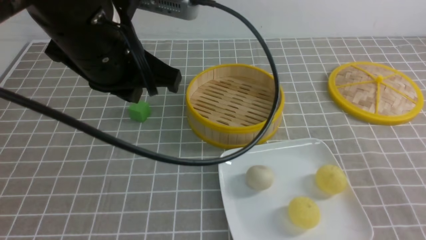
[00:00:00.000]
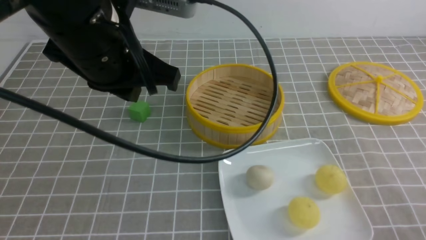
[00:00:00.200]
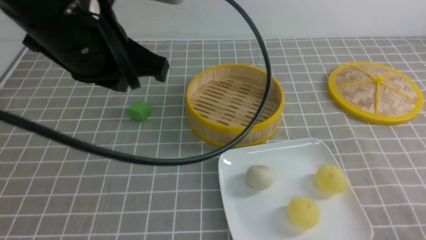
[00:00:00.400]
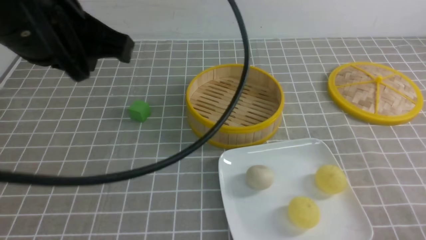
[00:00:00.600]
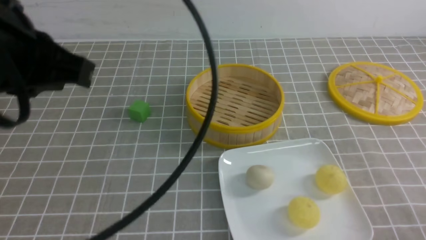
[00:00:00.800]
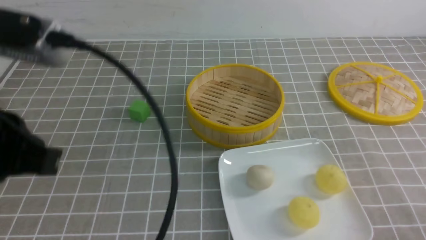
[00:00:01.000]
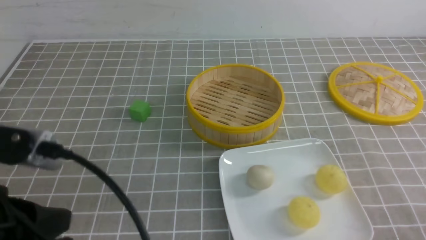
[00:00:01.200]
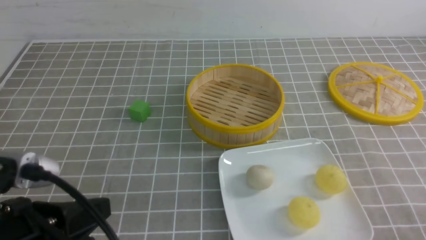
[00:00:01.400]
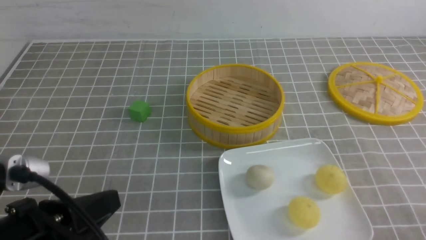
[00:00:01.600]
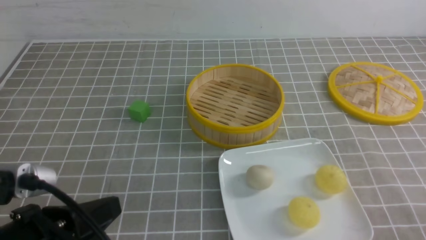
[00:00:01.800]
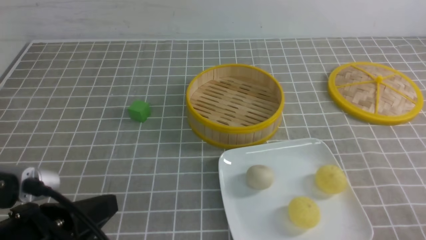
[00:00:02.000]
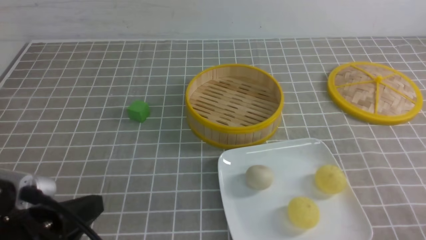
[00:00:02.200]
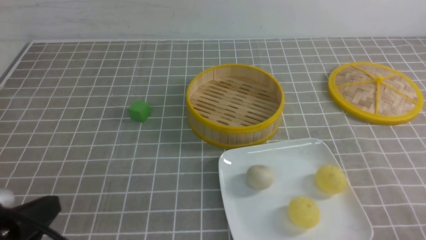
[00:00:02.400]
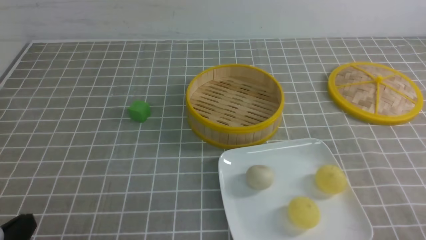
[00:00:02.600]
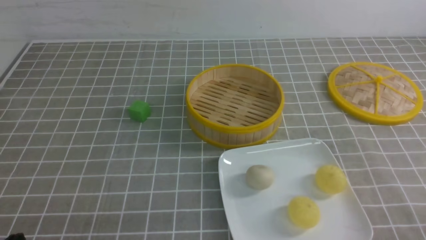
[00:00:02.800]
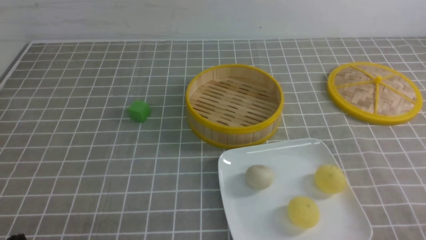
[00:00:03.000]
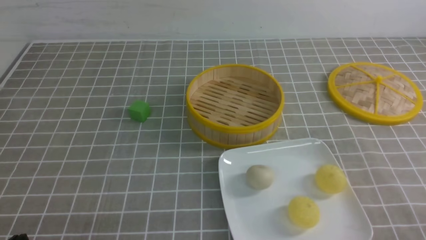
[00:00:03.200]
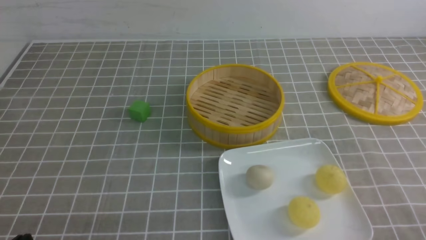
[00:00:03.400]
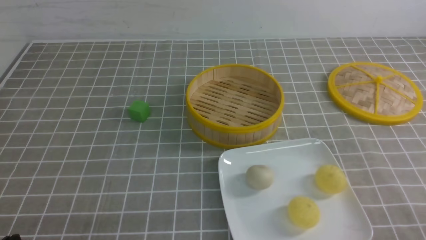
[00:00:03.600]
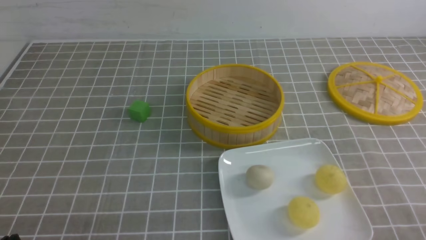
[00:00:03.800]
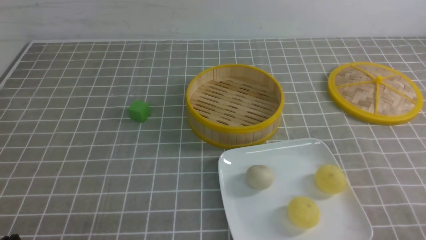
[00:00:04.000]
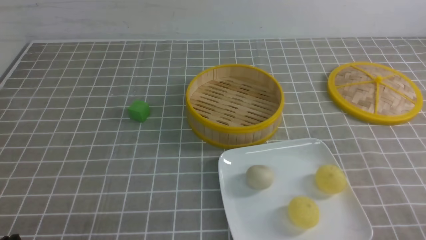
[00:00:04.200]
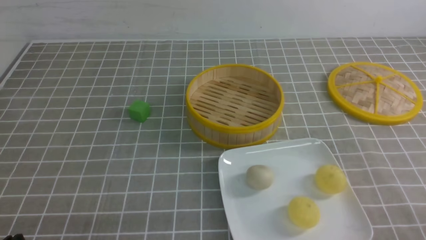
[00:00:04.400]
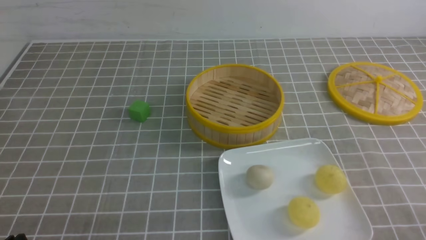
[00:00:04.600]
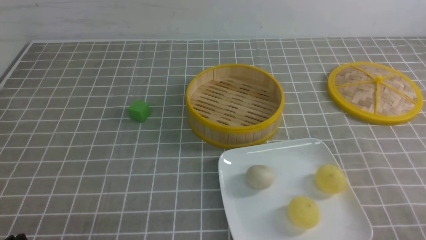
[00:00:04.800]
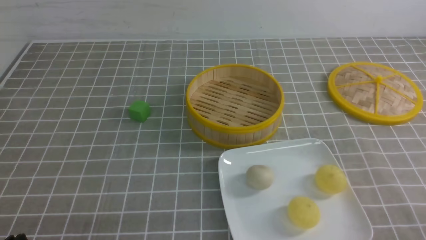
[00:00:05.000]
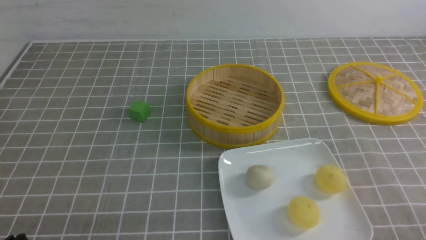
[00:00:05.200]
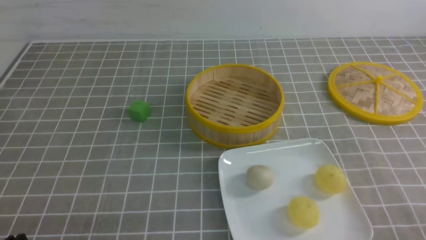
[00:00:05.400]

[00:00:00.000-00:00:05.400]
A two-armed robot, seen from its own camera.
00:00:00.000 to 00:00:01.400: The right gripper goes about 10 cm downward; the left gripper travels backward, downward and to the left by about 20 cm.
00:00:01.400 to 00:00:02.800: The left gripper shifts approximately 10 cm downward and to the left.
00:00:04.000 to 00:00:05.400: The two grippers keep their place.

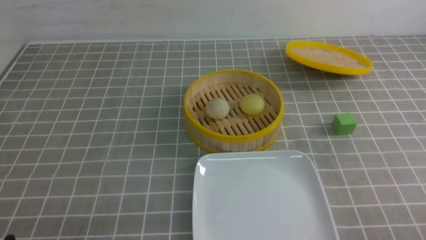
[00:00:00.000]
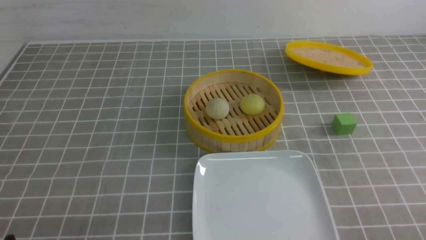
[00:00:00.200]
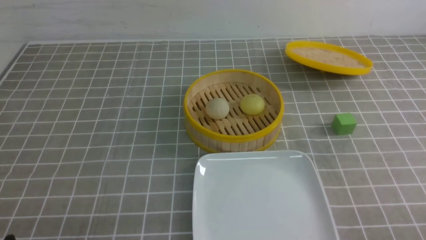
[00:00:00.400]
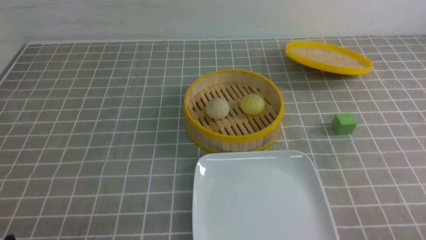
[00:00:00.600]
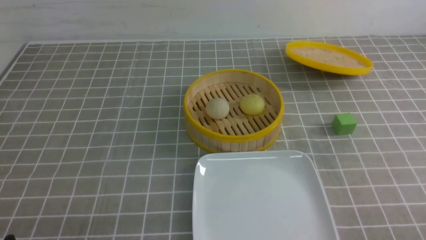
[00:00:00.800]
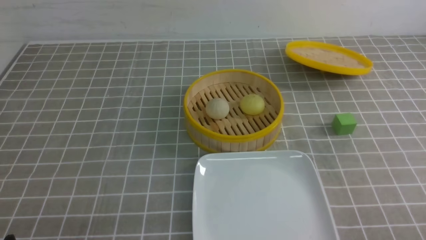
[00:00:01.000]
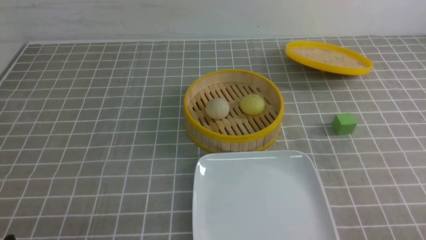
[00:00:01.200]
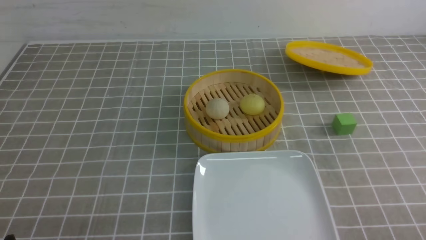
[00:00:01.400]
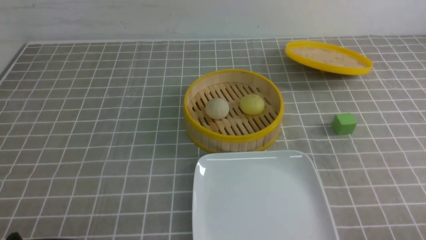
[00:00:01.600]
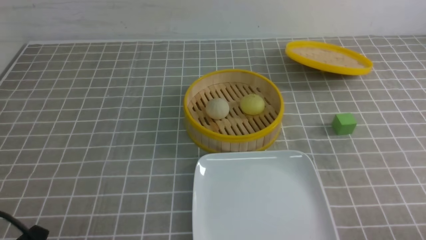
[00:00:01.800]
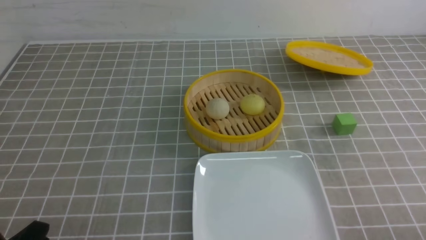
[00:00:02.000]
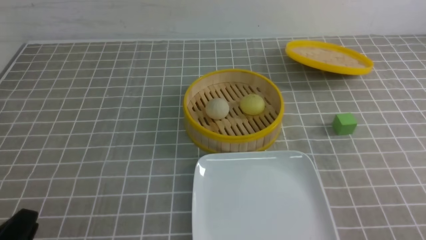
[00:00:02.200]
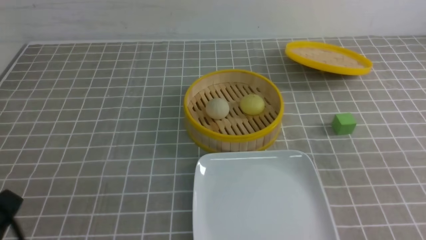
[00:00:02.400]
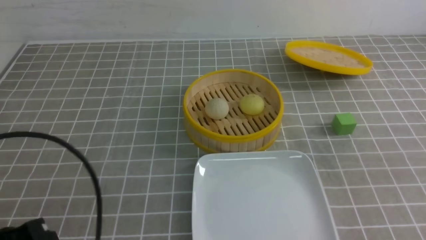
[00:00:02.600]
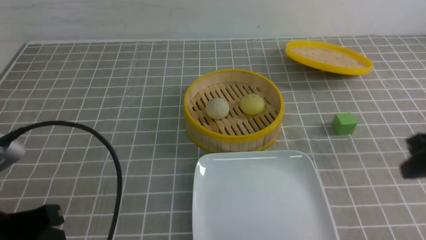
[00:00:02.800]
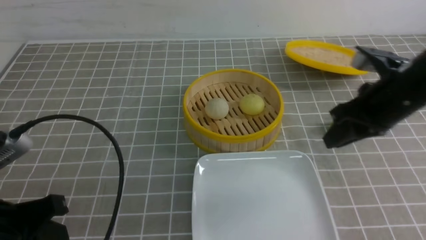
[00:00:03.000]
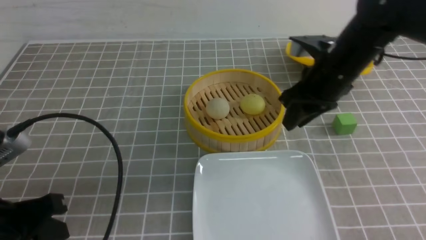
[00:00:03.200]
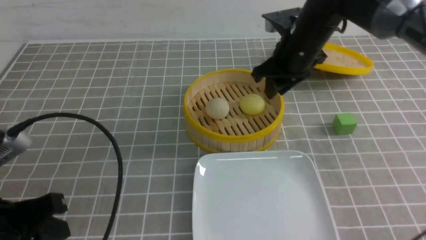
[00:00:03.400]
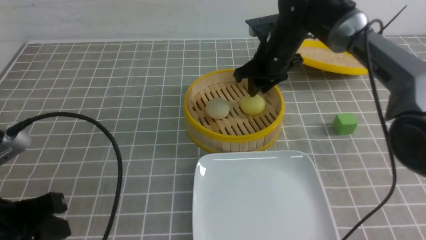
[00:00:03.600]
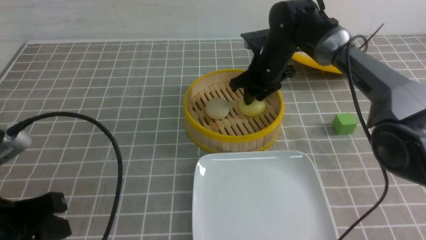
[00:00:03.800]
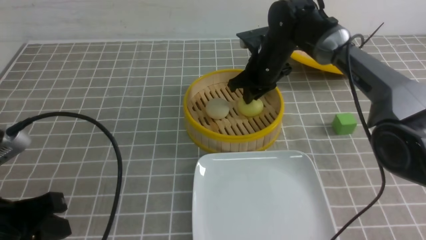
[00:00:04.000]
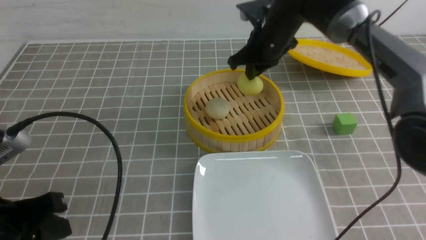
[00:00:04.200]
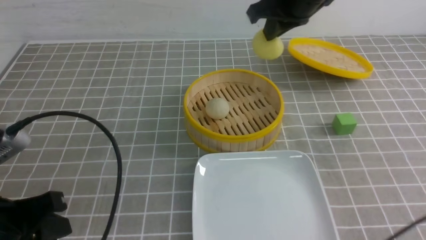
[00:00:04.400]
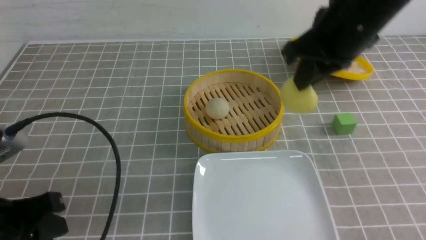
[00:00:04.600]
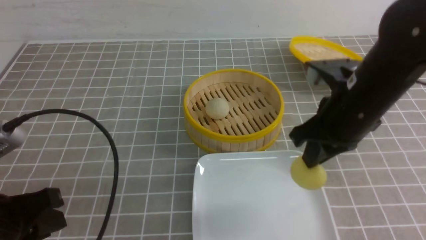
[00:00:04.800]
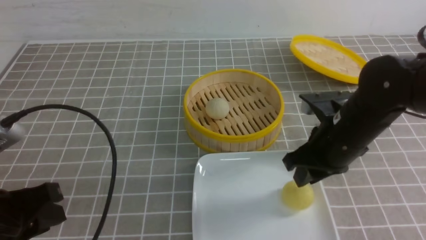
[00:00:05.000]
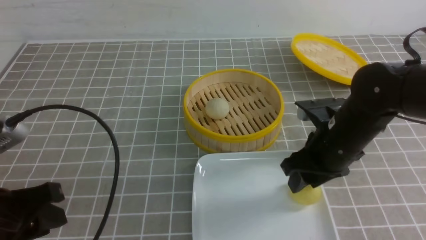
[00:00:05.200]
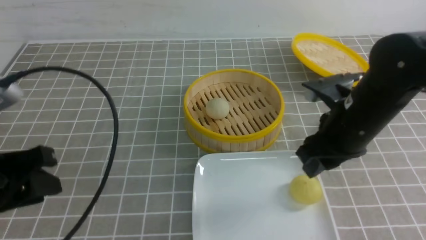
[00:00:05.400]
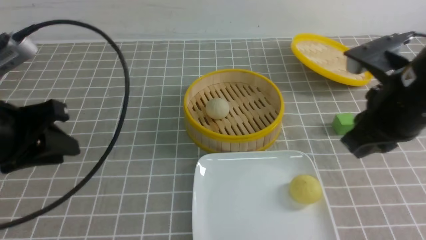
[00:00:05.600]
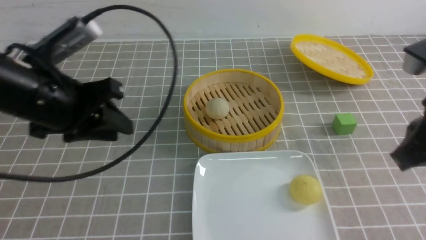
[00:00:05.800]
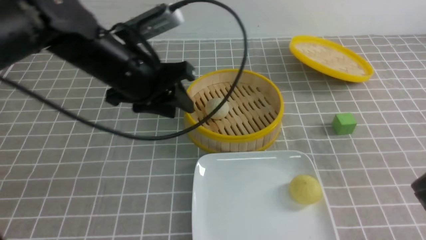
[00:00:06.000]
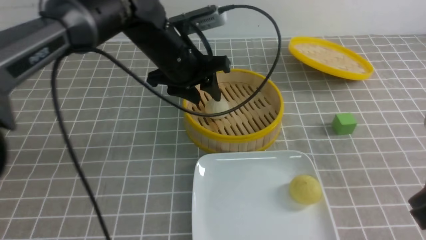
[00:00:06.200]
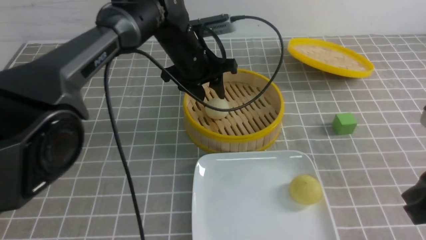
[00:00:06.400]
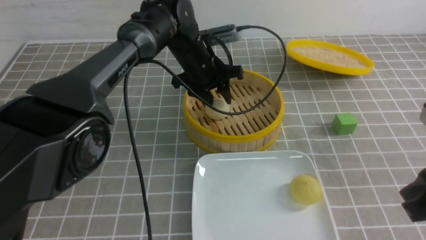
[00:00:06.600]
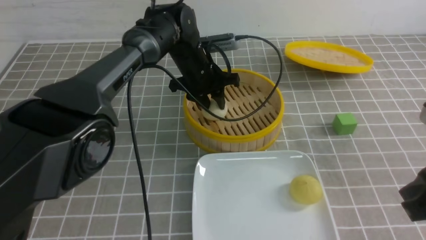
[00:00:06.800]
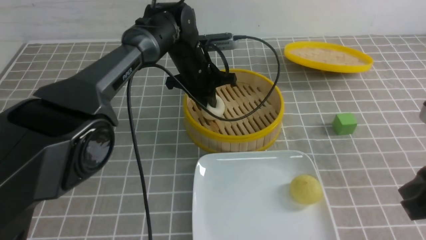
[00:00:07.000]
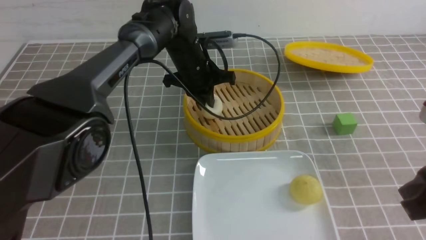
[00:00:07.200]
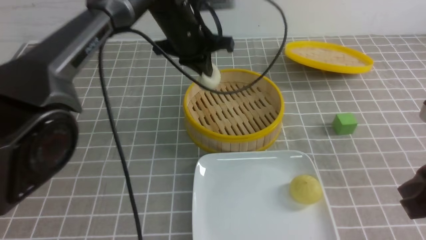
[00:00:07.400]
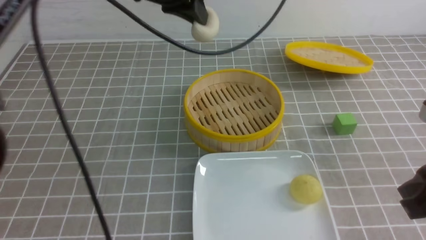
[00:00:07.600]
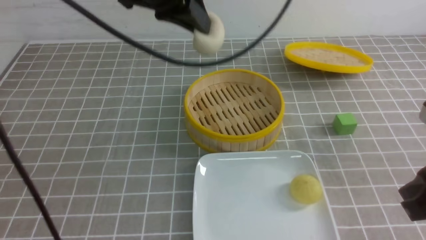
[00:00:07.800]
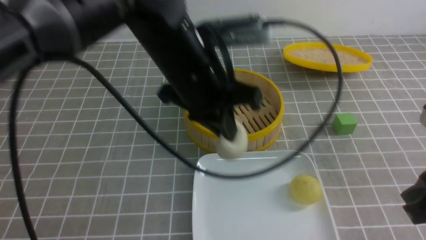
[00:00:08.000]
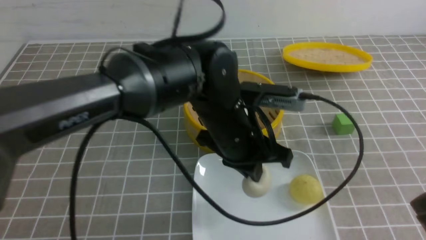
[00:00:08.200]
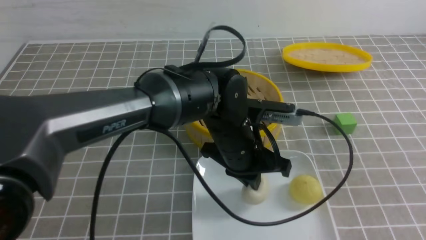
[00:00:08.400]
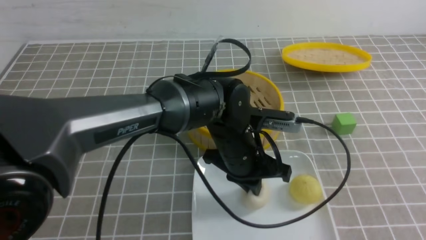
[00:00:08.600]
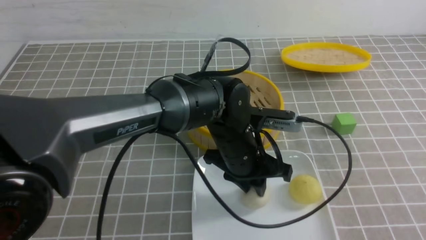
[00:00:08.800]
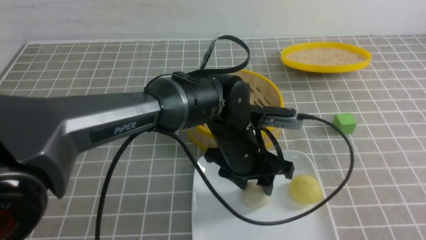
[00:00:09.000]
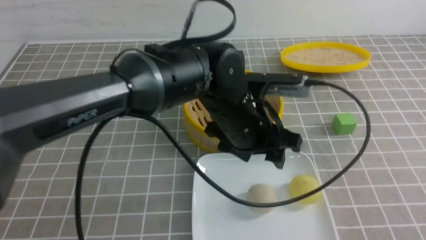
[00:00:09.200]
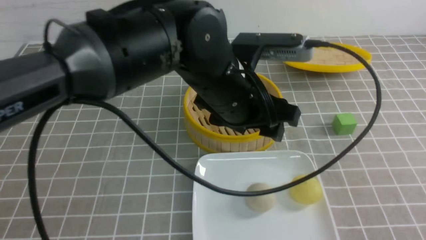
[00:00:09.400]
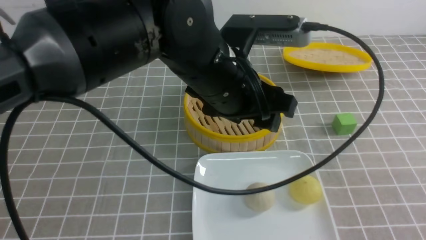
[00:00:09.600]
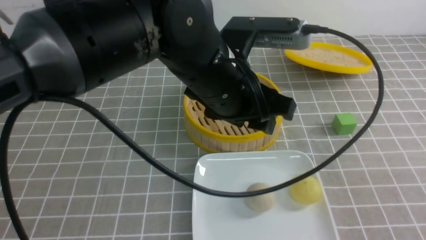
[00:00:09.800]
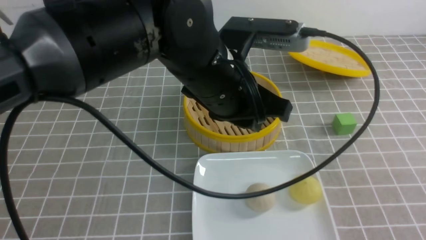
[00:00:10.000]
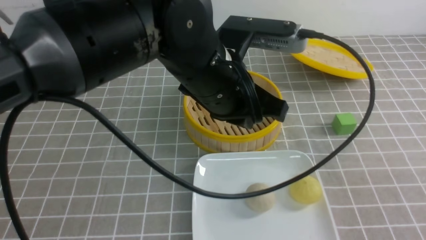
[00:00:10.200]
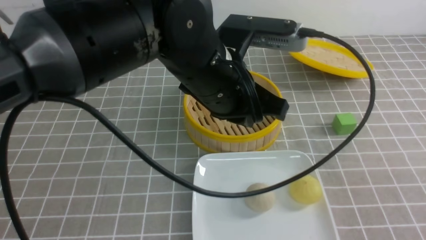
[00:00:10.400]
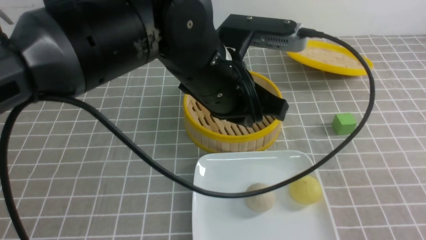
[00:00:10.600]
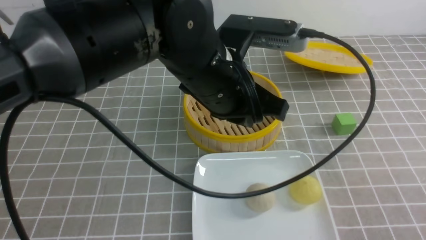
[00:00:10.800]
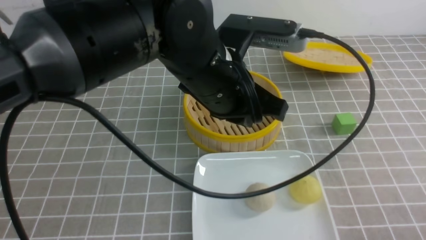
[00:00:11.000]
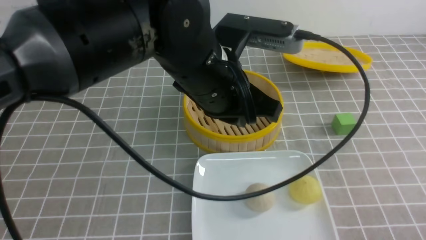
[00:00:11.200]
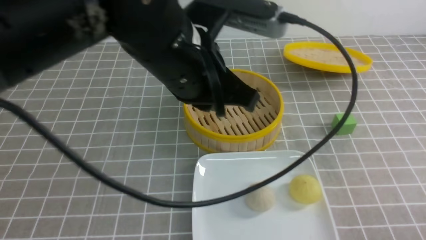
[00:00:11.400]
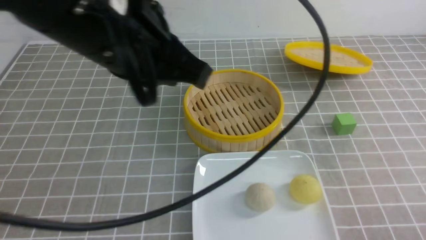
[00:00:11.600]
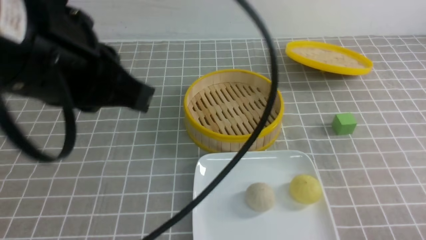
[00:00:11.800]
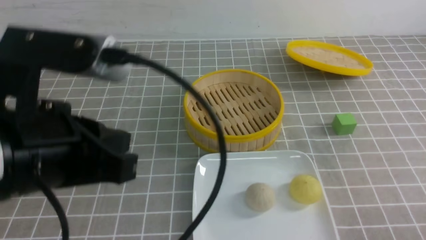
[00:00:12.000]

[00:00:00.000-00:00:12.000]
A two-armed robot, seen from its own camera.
Step, 00:00:00.000 to 00:00:04.000: use the right arm to grab the steamed stuffed bun that is closest to it.
Step, 00:00:04.200 to 00:00:05.200: use the right arm to put the steamed stuffed bun into the plate.
Step, 00:00:05.400 to 00:00:07.200: use the left arm to grab the steamed stuffed bun that is closest to it.
Step, 00:00:07.400 to 00:00:08.800: use the left arm to put the steamed stuffed bun into the plate.
00:00:01.600 to 00:00:03.000: The left gripper is displaced upward and forward by about 10 cm, and closes its fingers, while the right gripper heads forward and upward, covering about 30 cm, and closes and opens again.
00:00:03.000 to 00:00:04.400: The right gripper shifts approximately 15 cm to the left, forward and upward, and closes its fingers.
00:00:04.400 to 00:00:06.000: The left gripper is displaced forward and to the right by approximately 25 cm. The right gripper moves backward and to the right, about 25 cm, and opens and closes again.
00:00:06.000 to 00:00:07.600: The left gripper moves upward and to the right, approximately 10 cm, and closes up.
00:00:07.600 to 00:00:09.000: The left gripper goes some 25 cm downward, to the right and backward, and opens, while the right gripper moves backward and to the right, some 20 cm.
00:00:09.000 to 00:00:10.400: The right gripper moves downward and forward, approximately 10 cm; the left gripper goes approximately 10 cm upward, and closes its fingers.
00:00:10.400 to 00:00:12.000: The left gripper shifts some 20 cm to the left and backward; the right gripper heads downward, covering some 10 cm.
